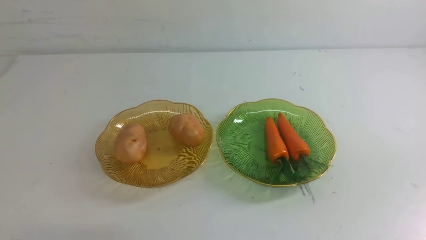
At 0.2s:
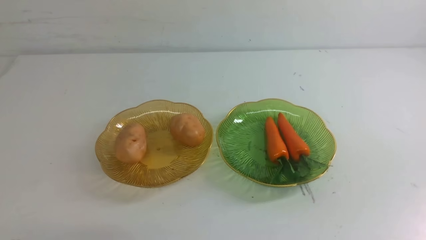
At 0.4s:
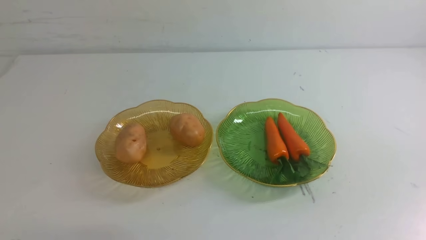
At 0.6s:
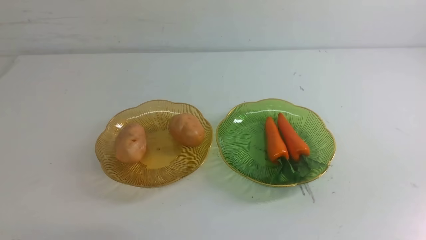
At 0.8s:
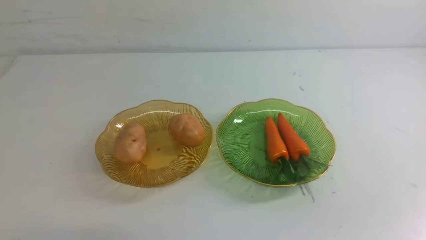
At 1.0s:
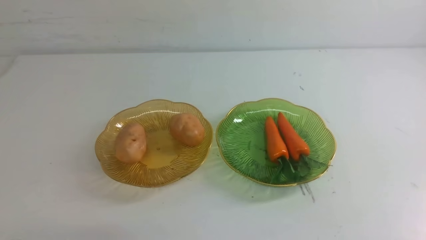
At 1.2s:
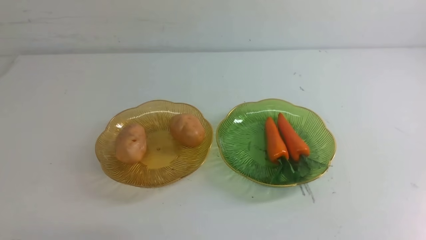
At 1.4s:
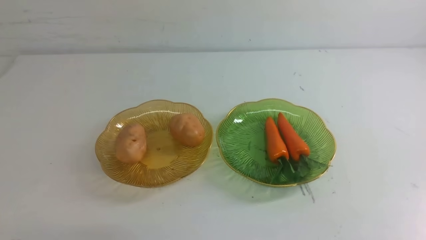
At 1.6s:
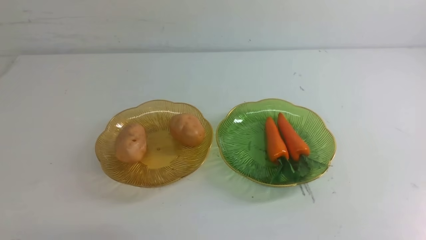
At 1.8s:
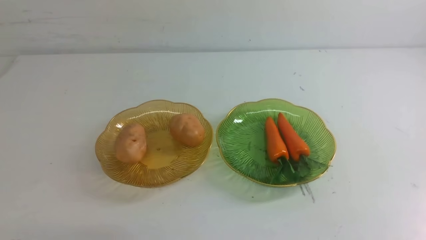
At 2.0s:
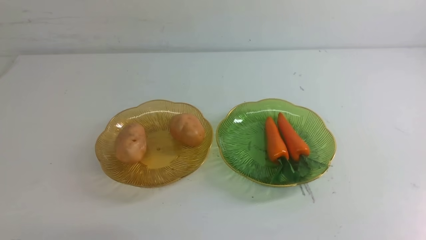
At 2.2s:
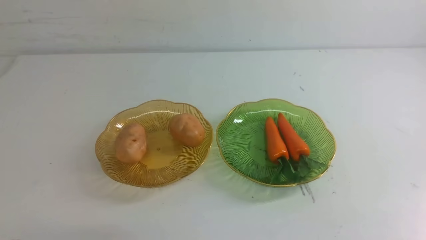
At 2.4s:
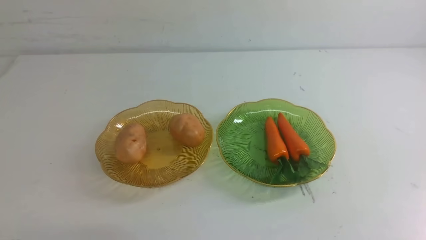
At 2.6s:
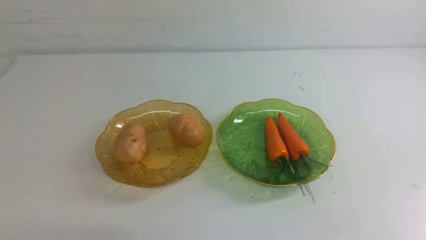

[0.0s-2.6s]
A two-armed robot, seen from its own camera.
1.2s to 2.6s: The two grippers keep their place.
